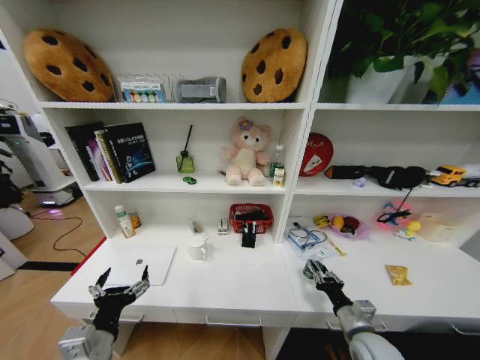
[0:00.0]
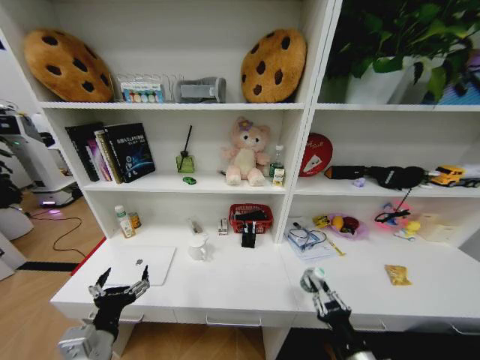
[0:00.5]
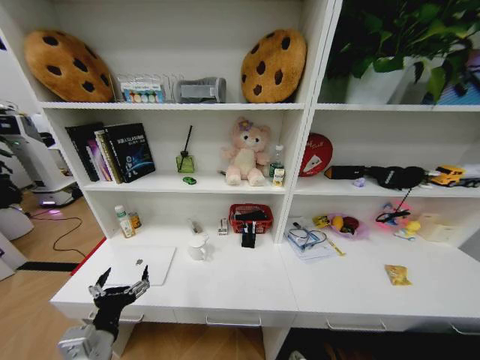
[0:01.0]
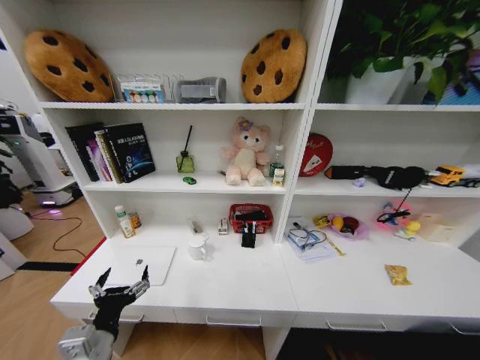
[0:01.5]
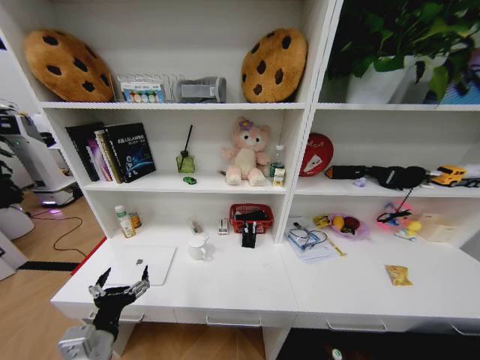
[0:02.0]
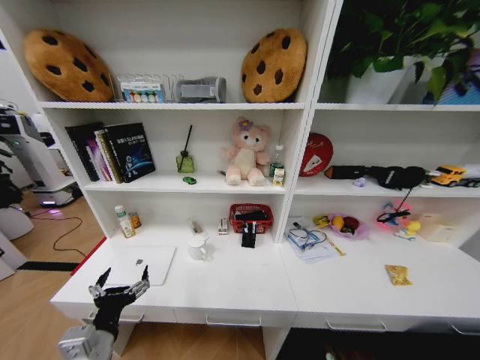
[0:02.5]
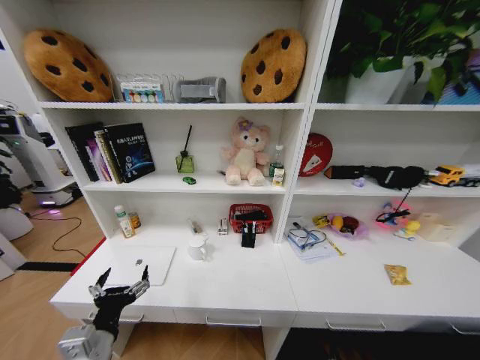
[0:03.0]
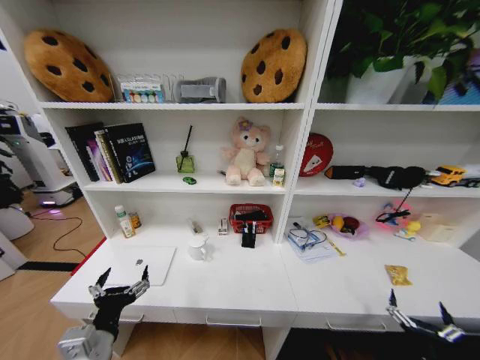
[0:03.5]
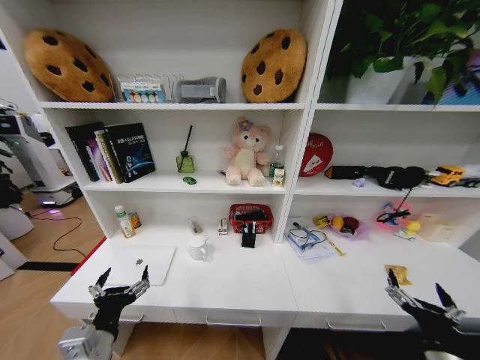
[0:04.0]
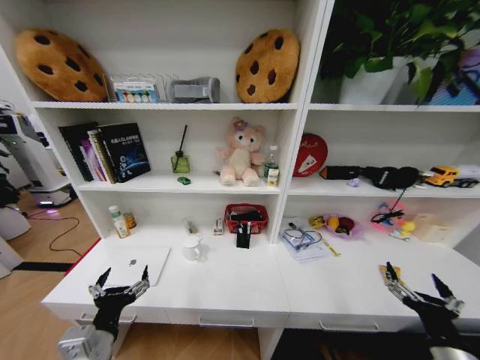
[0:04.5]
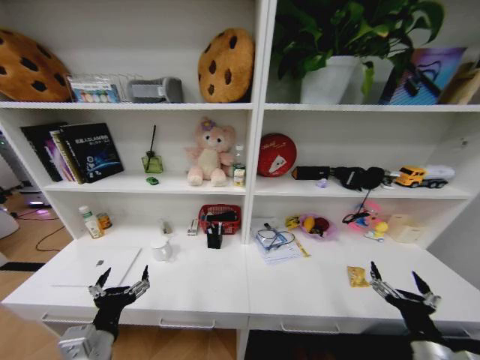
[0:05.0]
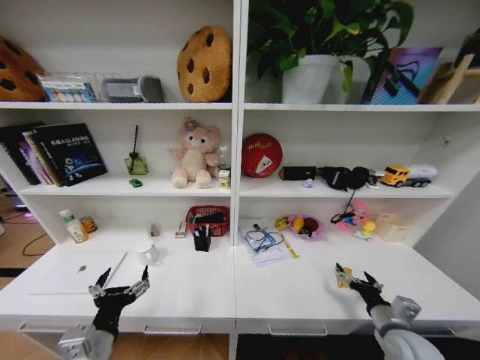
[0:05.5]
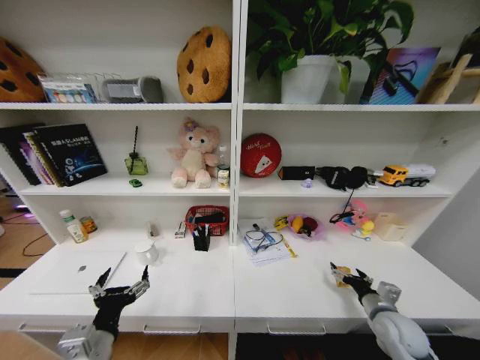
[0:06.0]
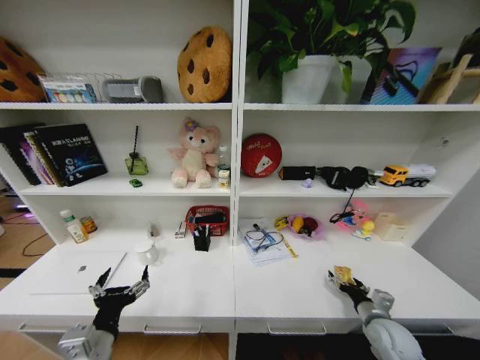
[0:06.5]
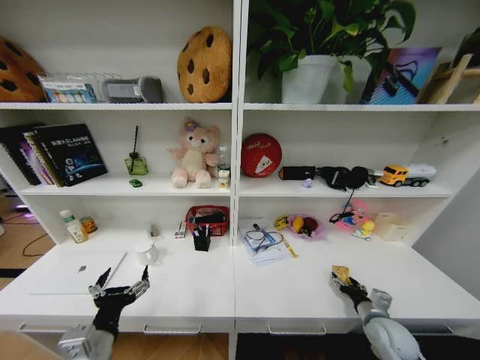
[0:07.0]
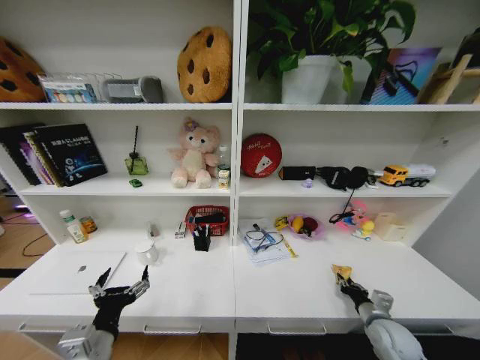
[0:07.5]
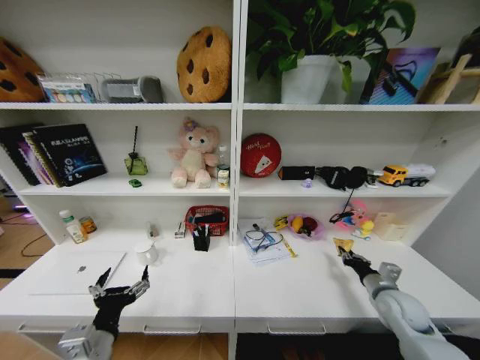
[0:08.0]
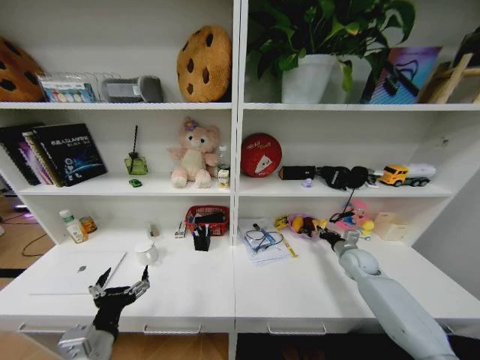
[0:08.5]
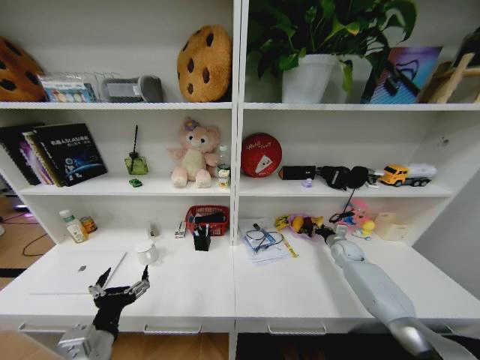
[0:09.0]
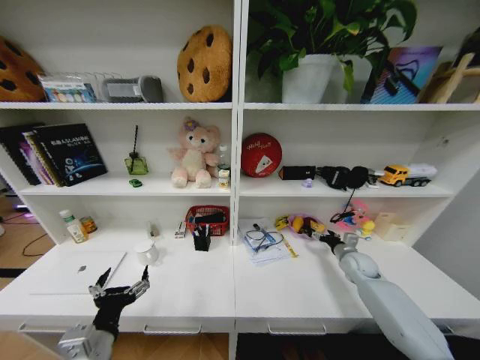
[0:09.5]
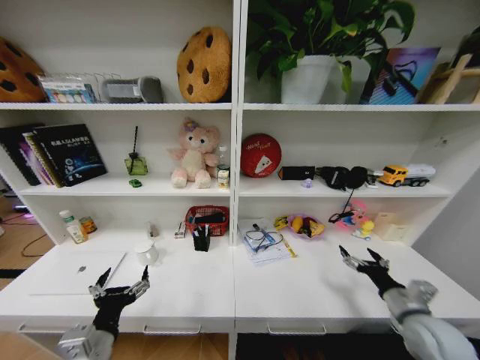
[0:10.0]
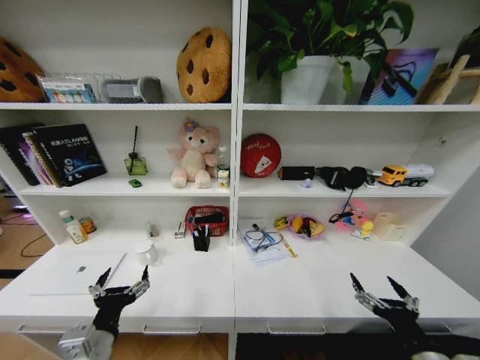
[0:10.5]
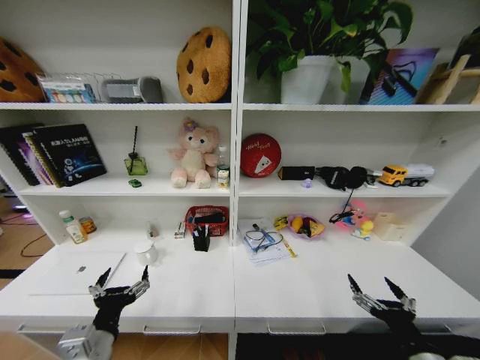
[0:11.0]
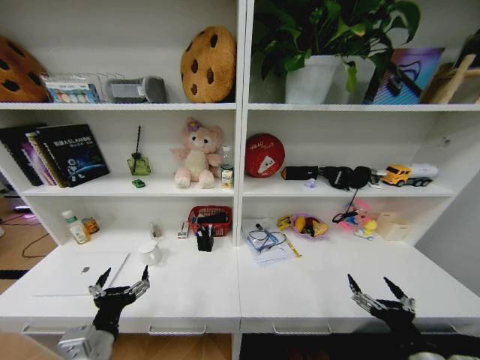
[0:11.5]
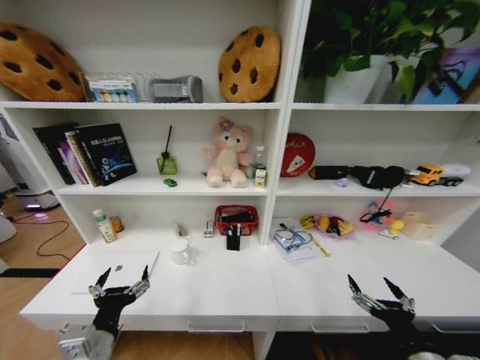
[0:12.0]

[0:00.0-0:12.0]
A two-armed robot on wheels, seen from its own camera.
Task of the whole recording: Organize the objects on the table.
0:00.0 to 0:02.0: The right gripper is displaced downward and backward by about 35 cm.
0:02.0 to 0:04.0: The right gripper shifts about 35 cm upward, and opens up.
0:04.0 to 0:06.0: The right gripper is displaced forward by roughly 15 cm.
0:06.0 to 0:08.0: The right gripper moves some 5 cm, and closes its fingers.
0:08.0 to 0:10.0: The right gripper goes forward and returns, roughly 20 cm each way, and opens up.
0:10.0 to 0:12.0: The right gripper heads backward and to the left, covering approximately 10 cm.
